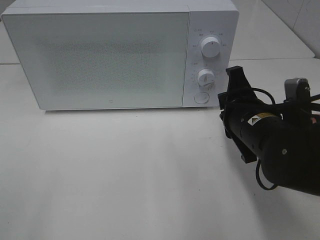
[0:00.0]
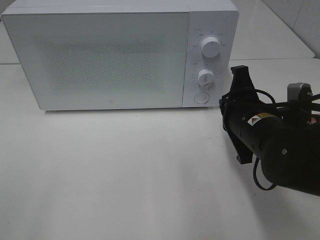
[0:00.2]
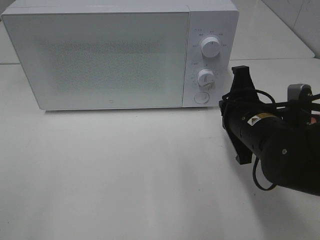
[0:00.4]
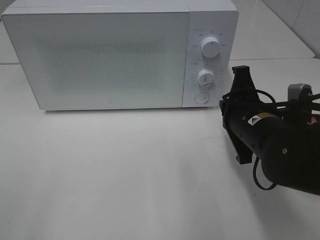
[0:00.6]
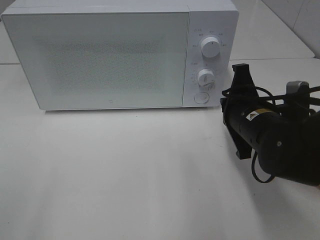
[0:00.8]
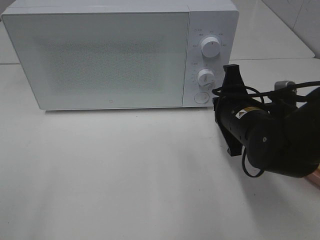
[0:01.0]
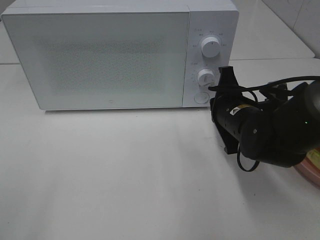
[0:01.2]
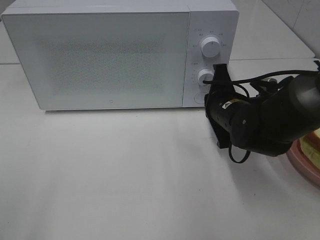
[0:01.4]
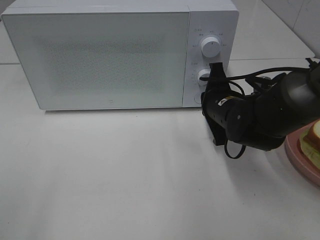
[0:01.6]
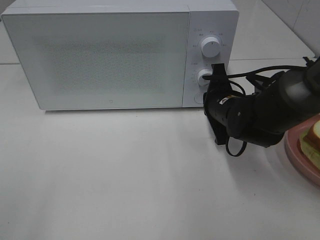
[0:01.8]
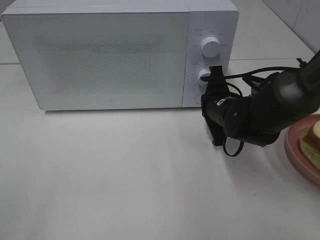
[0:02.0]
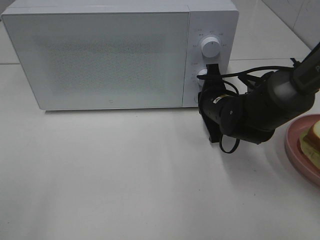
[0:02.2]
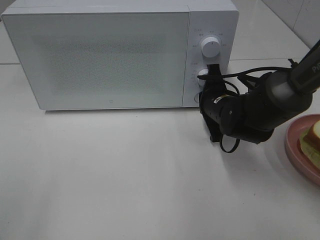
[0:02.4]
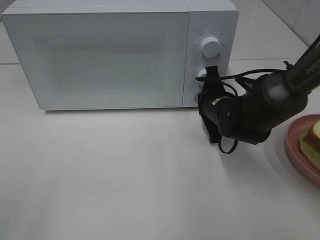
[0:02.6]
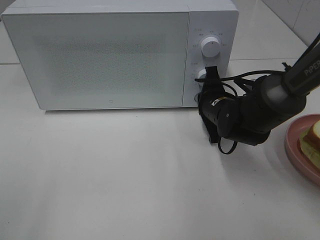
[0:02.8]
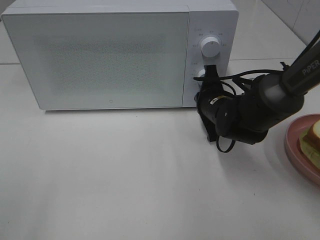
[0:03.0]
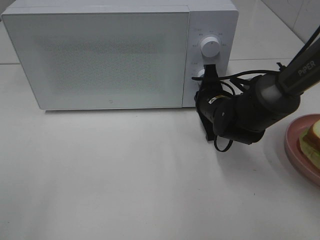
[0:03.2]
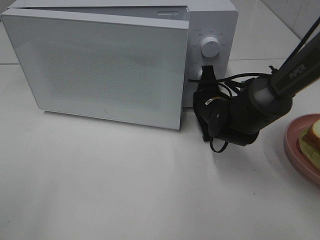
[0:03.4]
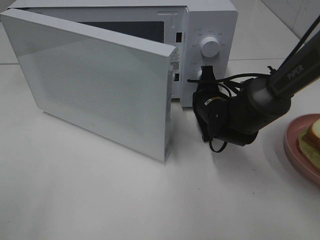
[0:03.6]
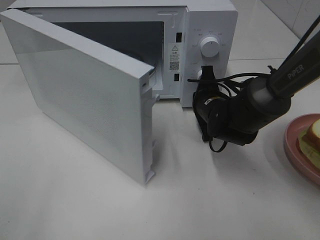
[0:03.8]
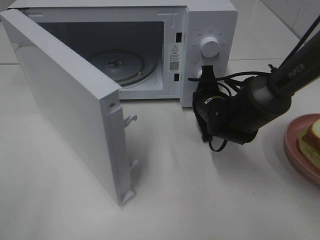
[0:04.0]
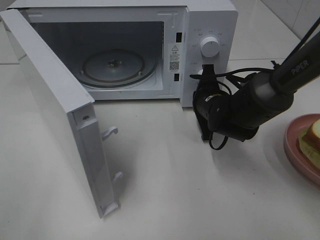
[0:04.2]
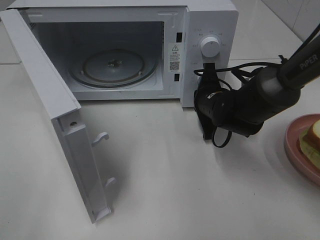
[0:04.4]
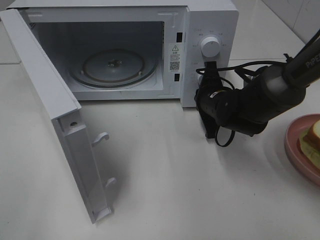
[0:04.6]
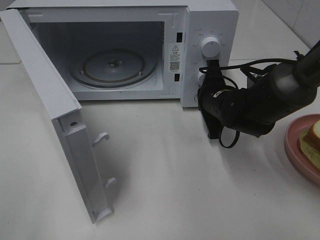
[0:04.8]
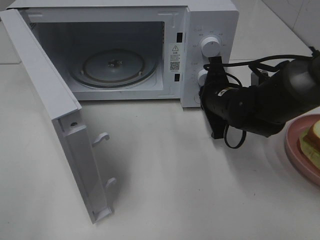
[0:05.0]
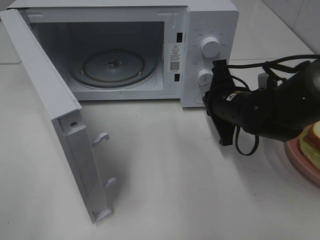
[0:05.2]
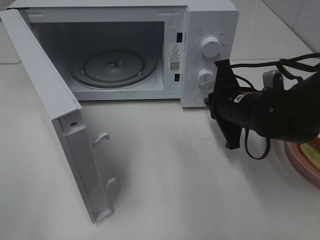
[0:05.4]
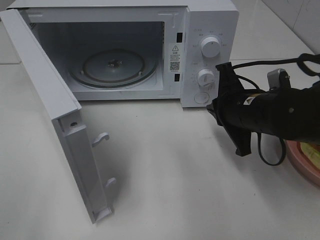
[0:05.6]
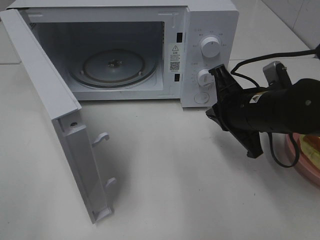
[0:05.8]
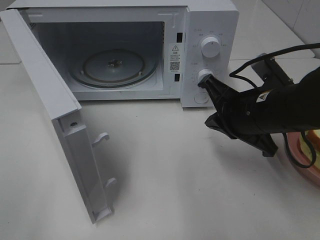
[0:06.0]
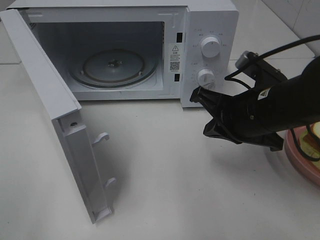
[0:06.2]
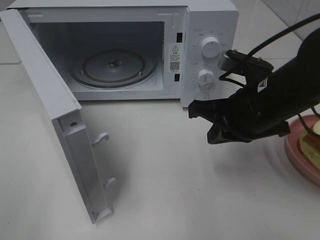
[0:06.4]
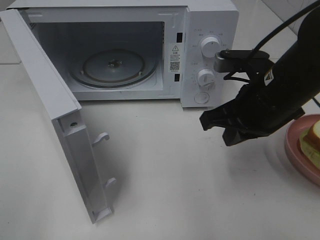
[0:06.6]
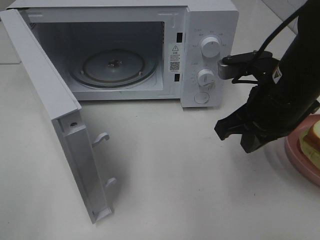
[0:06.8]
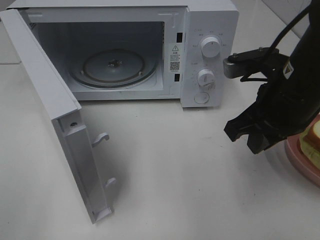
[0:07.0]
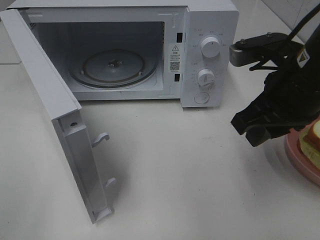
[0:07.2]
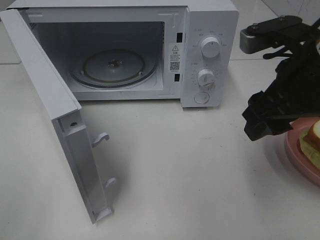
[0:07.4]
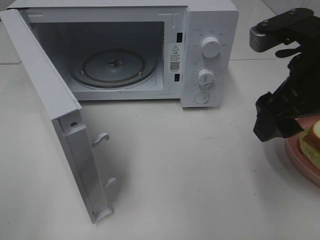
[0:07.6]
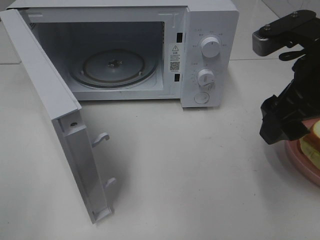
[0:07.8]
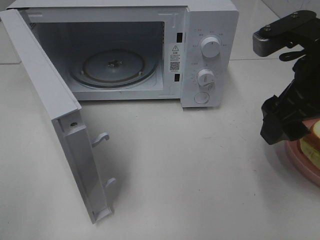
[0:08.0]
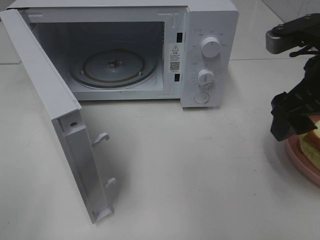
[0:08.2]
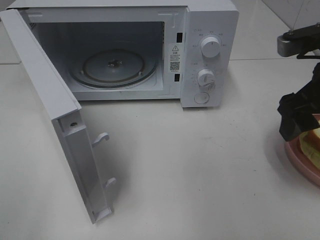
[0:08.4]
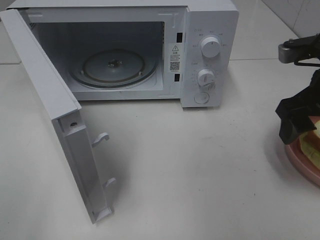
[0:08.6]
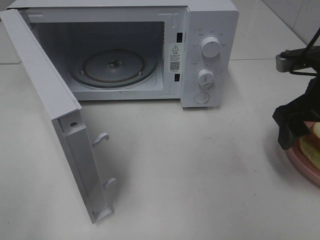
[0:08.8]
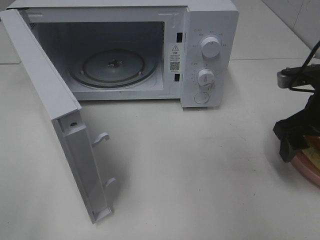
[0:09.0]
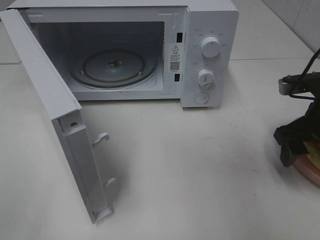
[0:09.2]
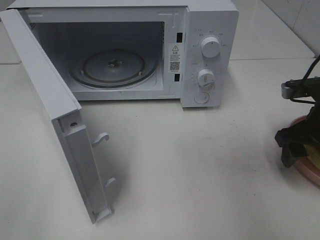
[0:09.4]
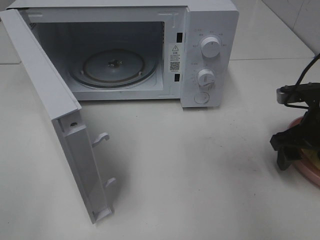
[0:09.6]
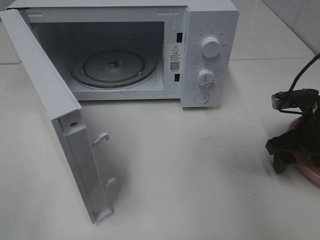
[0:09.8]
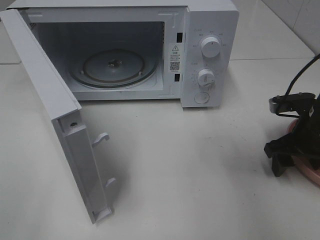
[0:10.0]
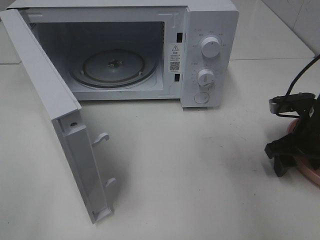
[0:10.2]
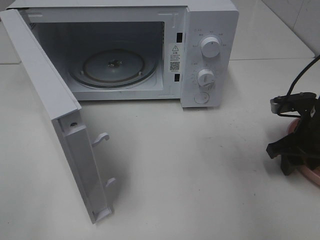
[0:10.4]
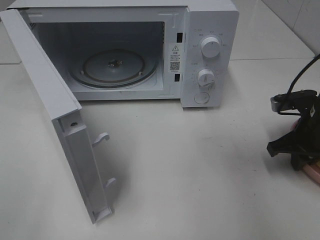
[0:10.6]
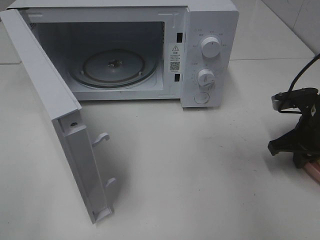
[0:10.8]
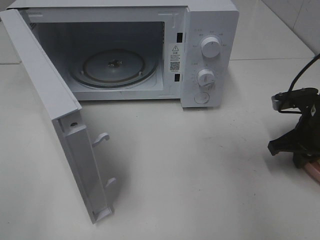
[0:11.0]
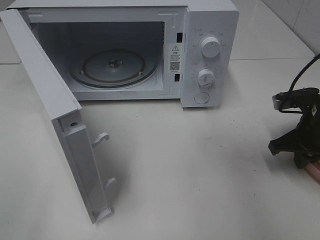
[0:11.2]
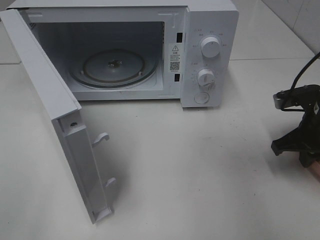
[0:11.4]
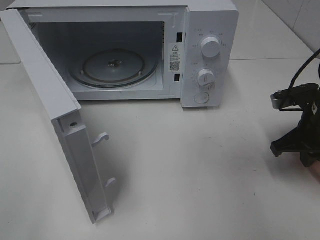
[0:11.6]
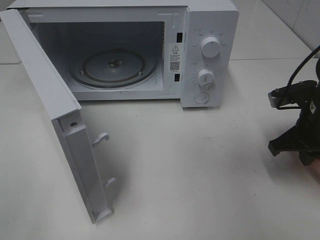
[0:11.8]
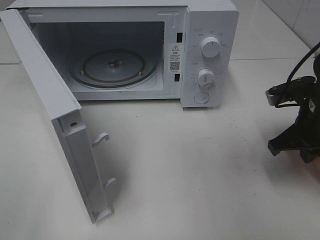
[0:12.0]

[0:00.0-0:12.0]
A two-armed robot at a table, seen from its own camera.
Task of the whole recording: Heat Sandwich.
Step, 0:00.0 to 0:05.0: Right hand: press the switch.
Step, 0:05.2 to 0:10.6: Right hand: grab the plate with the sandwich.
0:00.0 to 0:01.6: The right gripper moves forward, some 10 cm, and closes its fingers.
0:01.6 to 0:03.0: The grippers stay close to where they were, moving slightly.
0:04.4 to 0:06.0: The right gripper is displaced backward and upward by approximately 15 cm.
0:06.0 to 0:07.6: The right gripper heads upward, covering about 10 cm, and opens its fingers.
0:07.6 to 0:09.0: The right gripper goes roughly 15 cm downward, to the right and forward.
0:09.0 to 0:10.4: The right gripper shifts about 5 cm downward.
0:10.4 to 0:12.0: The right gripper closes up.

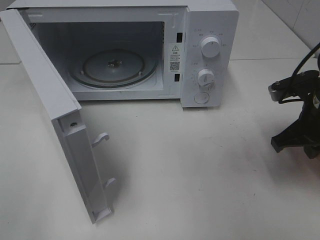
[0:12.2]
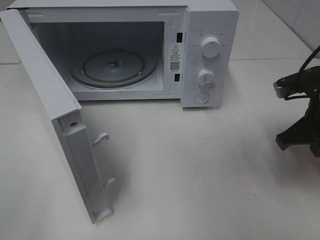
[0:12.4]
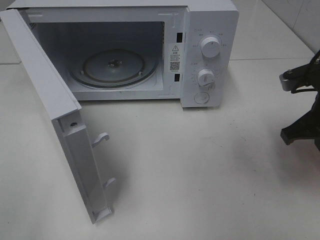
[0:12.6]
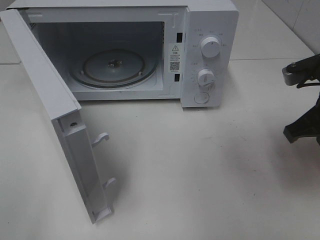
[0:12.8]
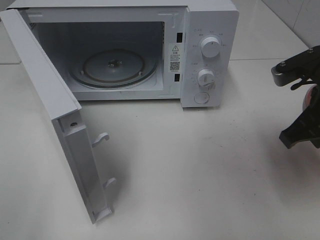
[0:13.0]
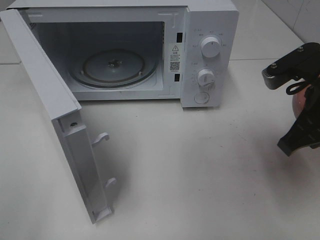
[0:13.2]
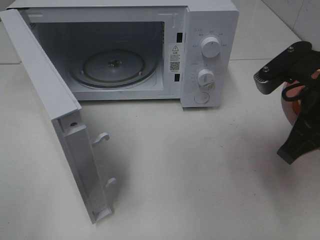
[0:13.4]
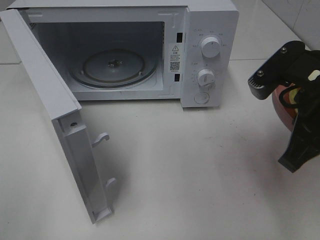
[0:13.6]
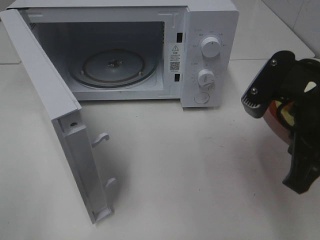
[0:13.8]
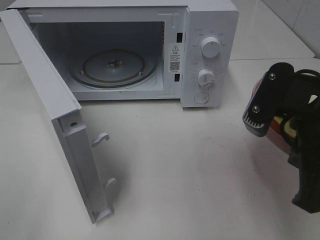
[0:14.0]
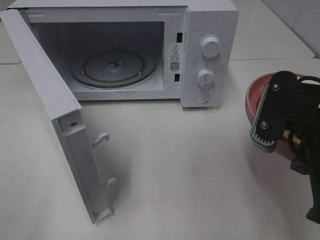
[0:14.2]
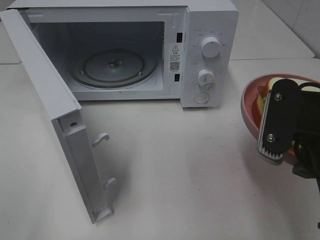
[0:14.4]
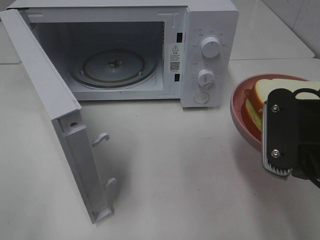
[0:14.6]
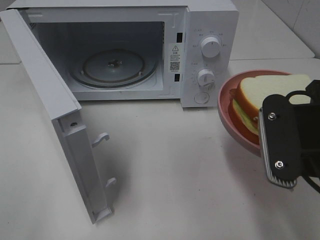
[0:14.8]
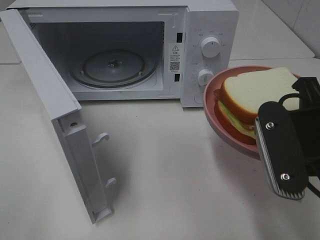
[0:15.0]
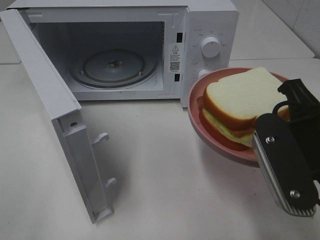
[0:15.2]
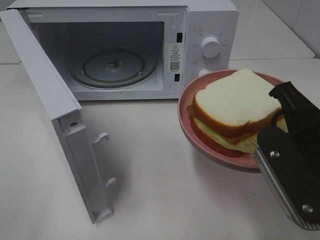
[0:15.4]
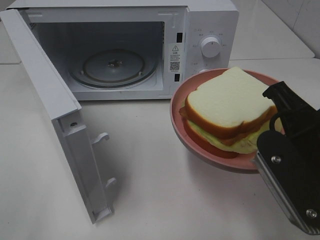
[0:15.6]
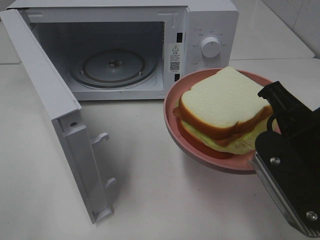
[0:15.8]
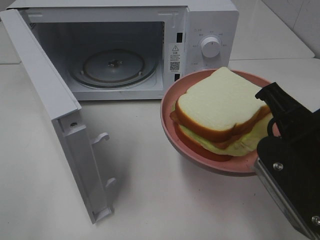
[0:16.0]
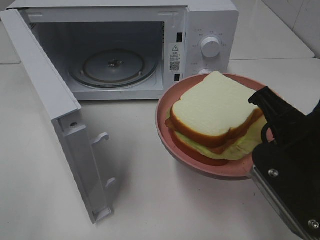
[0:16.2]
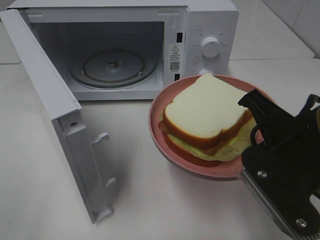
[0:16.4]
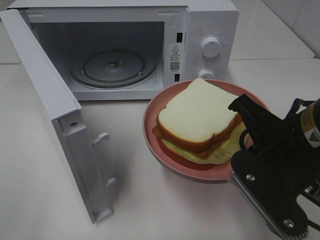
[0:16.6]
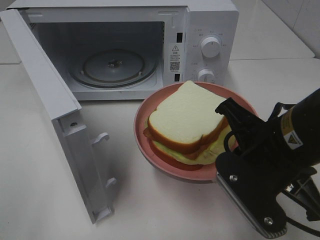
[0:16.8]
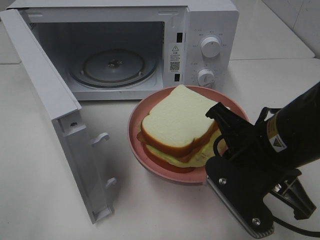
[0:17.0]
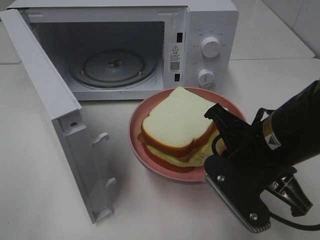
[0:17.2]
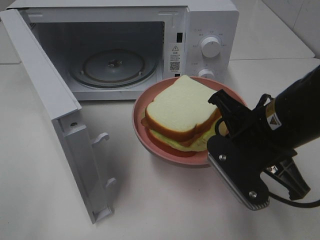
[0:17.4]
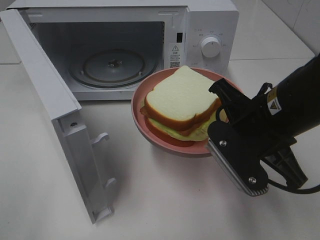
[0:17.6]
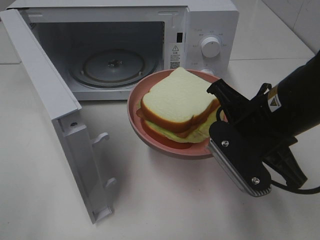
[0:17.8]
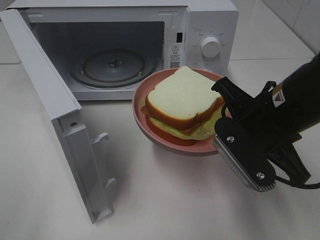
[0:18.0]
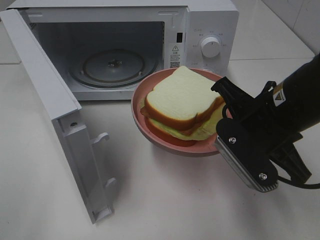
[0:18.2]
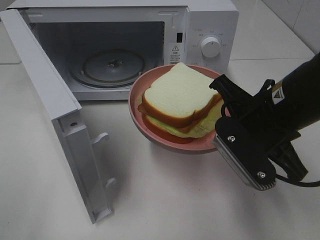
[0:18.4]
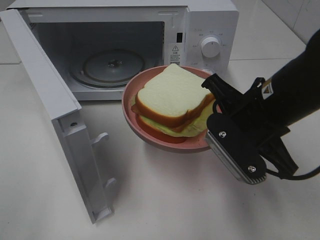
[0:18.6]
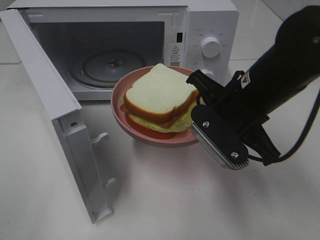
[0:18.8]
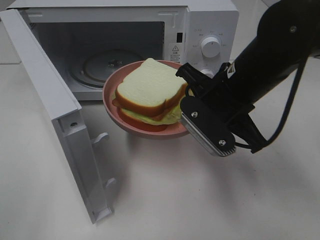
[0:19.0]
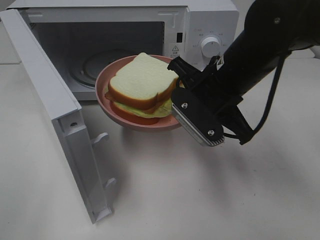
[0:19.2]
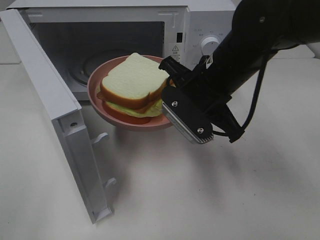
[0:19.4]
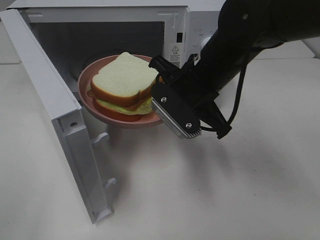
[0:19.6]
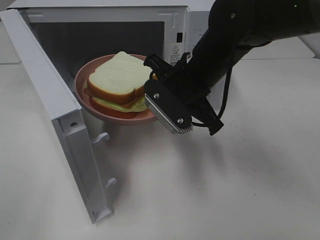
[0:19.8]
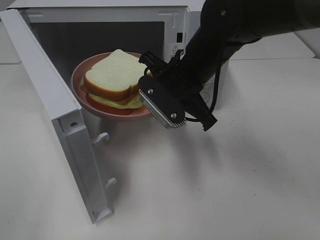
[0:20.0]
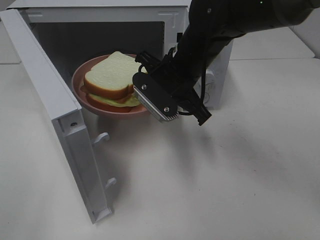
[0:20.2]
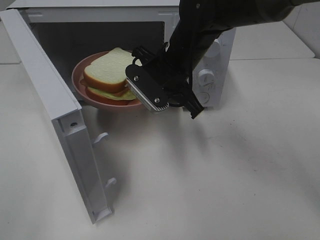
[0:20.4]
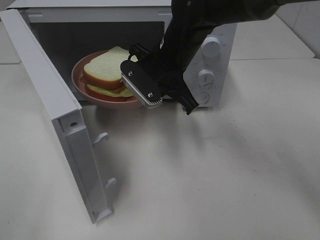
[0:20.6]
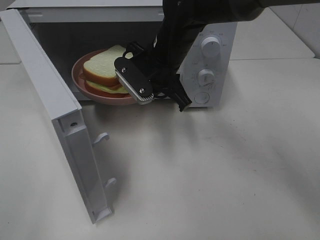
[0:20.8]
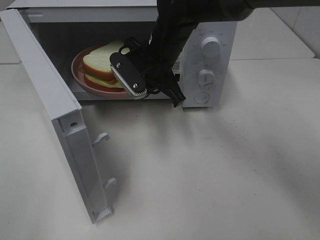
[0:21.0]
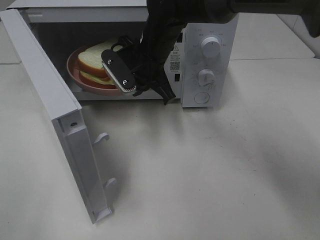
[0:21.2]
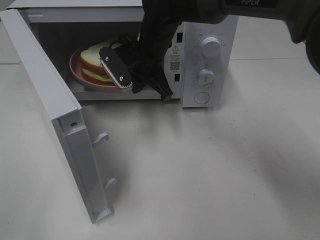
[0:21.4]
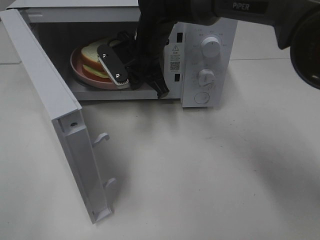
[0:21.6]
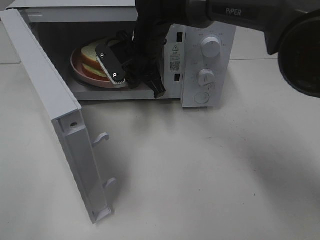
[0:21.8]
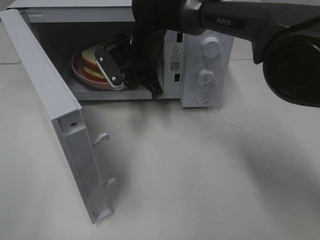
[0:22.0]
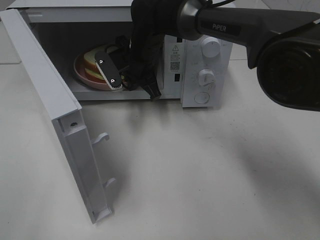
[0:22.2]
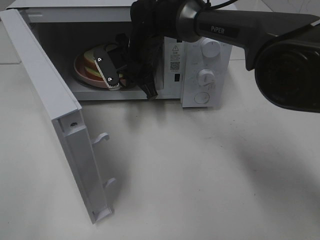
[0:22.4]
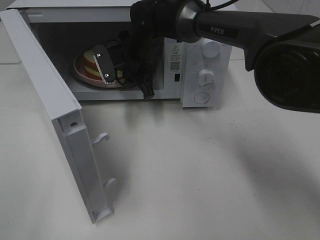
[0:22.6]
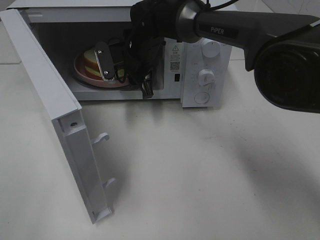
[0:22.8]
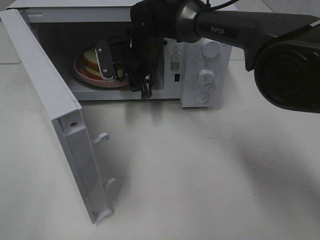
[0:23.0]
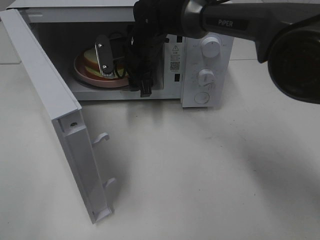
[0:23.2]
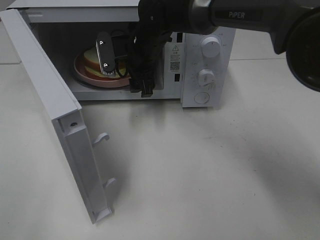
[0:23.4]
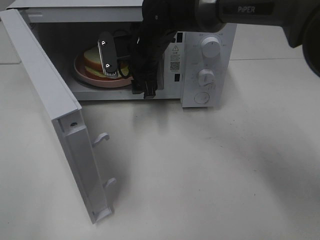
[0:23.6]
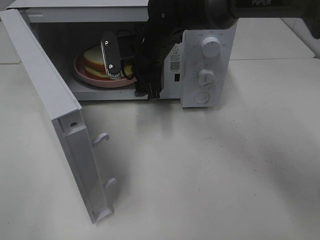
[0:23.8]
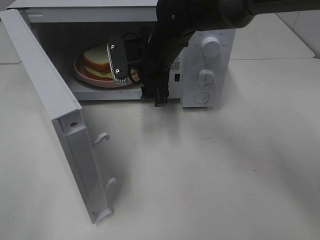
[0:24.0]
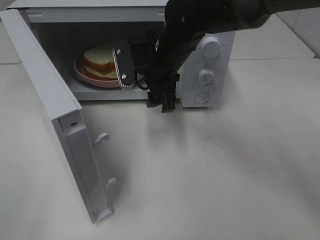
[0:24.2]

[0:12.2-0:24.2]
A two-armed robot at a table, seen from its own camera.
Task of the whole recording: Heat Sandwich.
Step, 0:12.2 to 0:24.0: Right hand: place the plate in the microwave.
0:12.2 to 0:13.8: The right gripper shifts roughly 15 cm backward, upward and to the left.
0:16.6 to 0:18.2: The right gripper shifts about 5 cm forward.
0:18.2 to 0:19.8: The right gripper heads forward and to the left, covering approximately 15 cm.
0:19.8 to 0:21.2: The right gripper shifts about 10 cm forward and to the left.
0:21.2 to 0:22.6: The right gripper changes place by some 5 cm, and opens.
0:22.6 to 0:24.2: The right gripper shifts some 10 cm backward and to the right, and opens its fingers.
